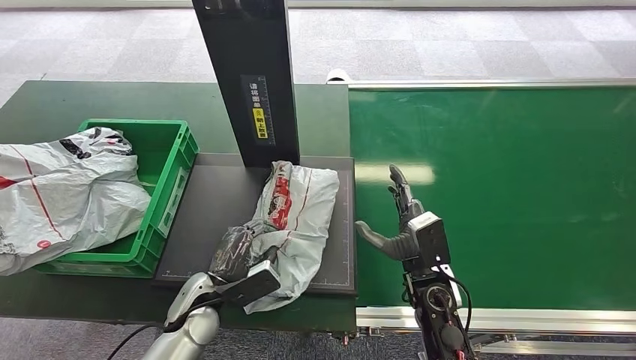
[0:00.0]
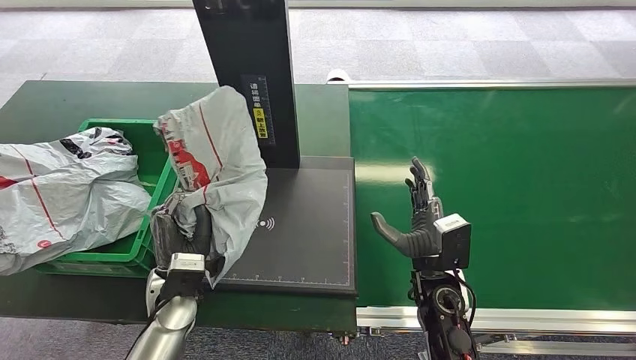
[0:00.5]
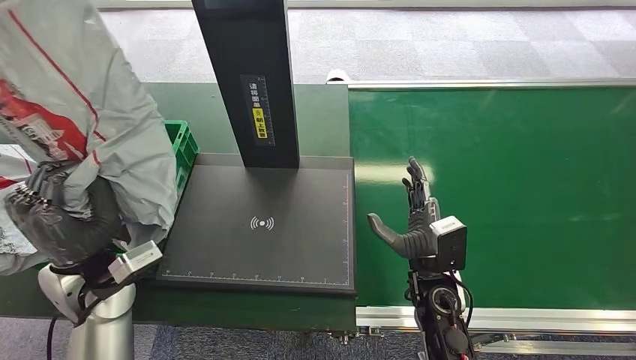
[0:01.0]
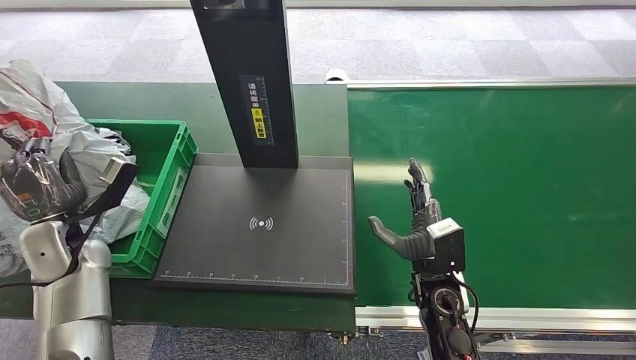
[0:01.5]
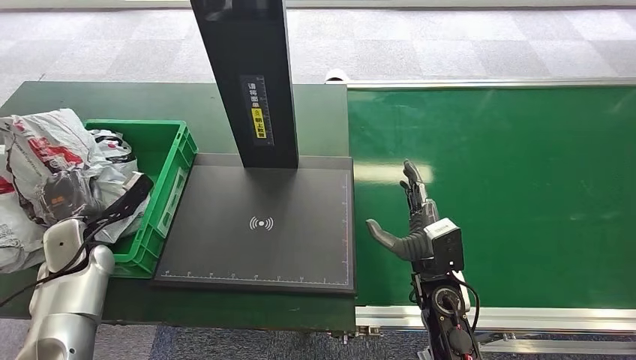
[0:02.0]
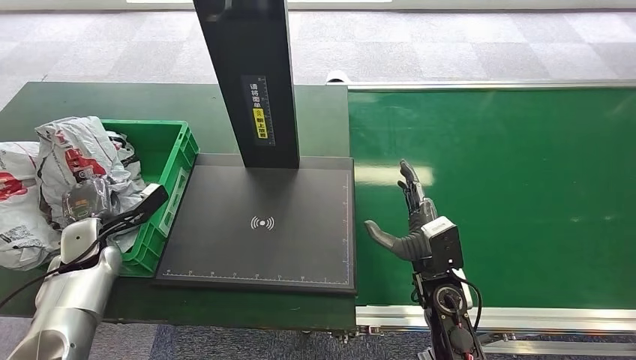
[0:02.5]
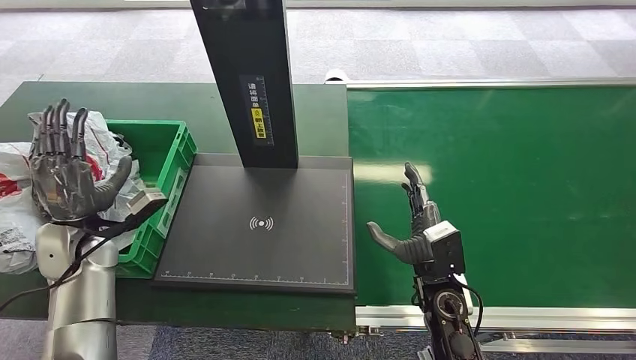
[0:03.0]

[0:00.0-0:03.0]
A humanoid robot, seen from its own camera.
Step, 0:01.0 to 0:03.0: Place the package into the parcel locker.
